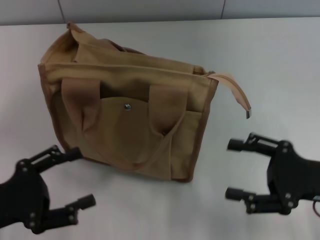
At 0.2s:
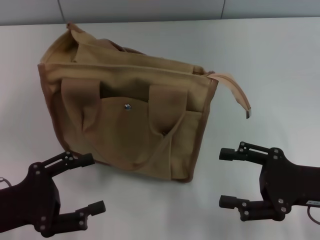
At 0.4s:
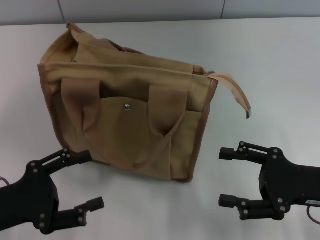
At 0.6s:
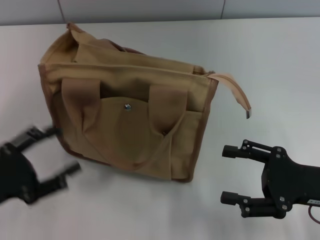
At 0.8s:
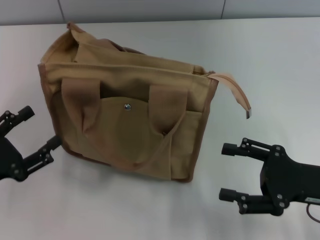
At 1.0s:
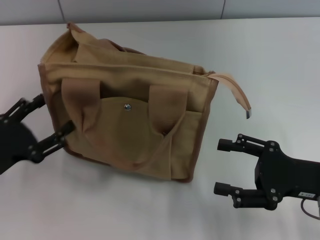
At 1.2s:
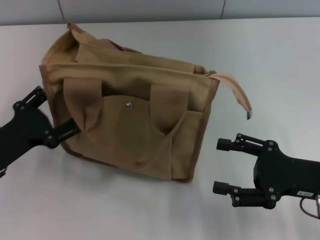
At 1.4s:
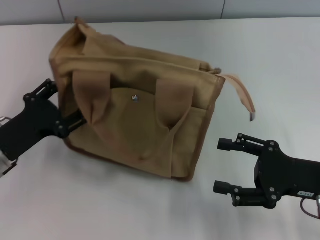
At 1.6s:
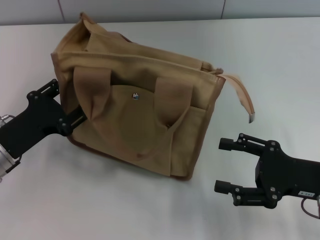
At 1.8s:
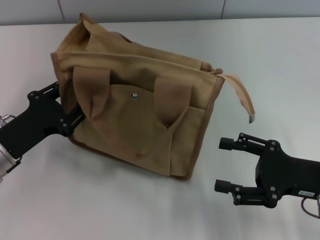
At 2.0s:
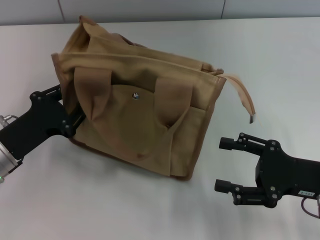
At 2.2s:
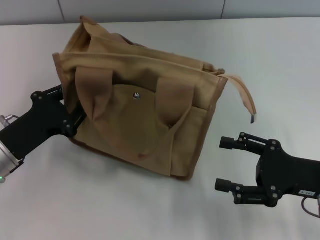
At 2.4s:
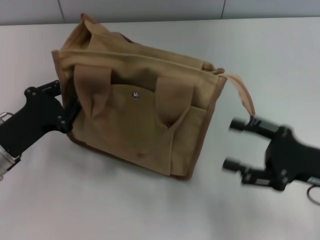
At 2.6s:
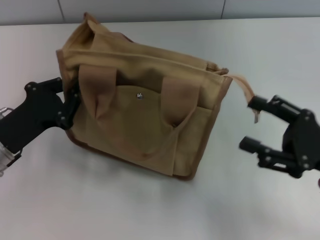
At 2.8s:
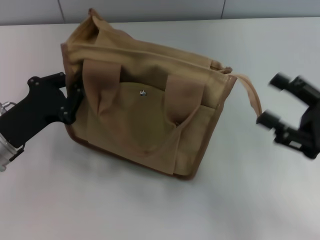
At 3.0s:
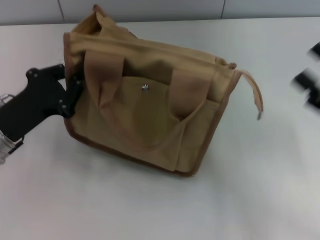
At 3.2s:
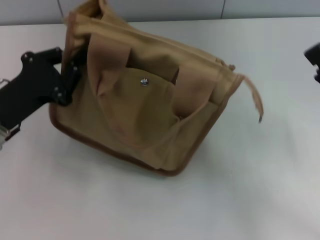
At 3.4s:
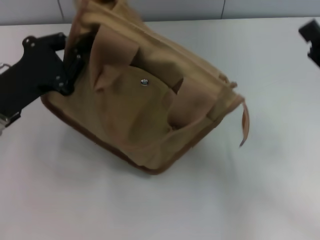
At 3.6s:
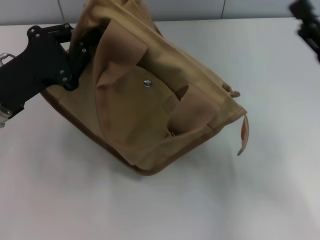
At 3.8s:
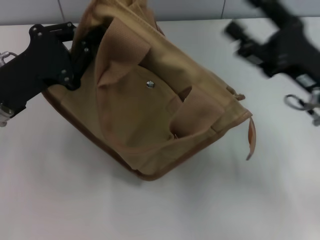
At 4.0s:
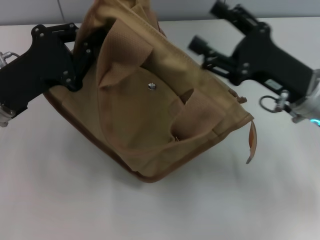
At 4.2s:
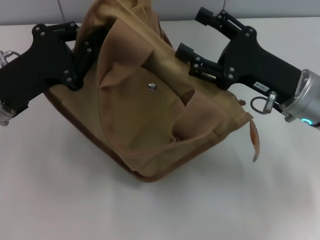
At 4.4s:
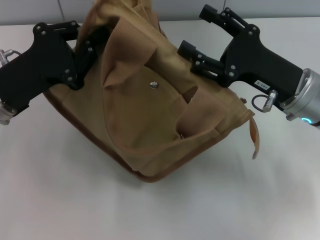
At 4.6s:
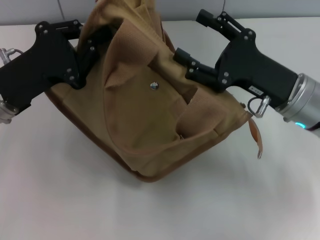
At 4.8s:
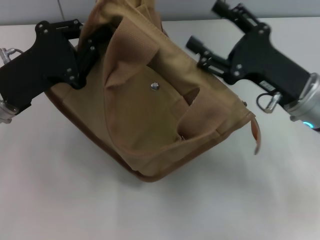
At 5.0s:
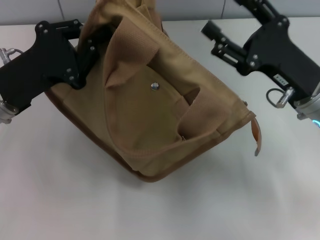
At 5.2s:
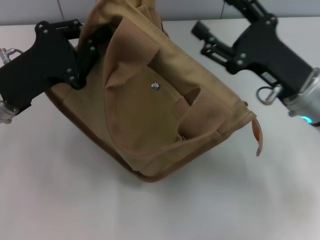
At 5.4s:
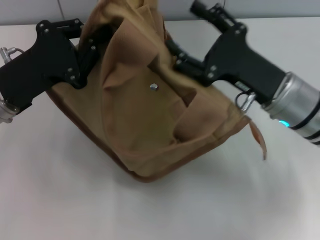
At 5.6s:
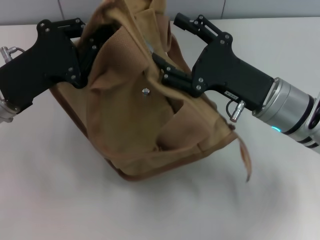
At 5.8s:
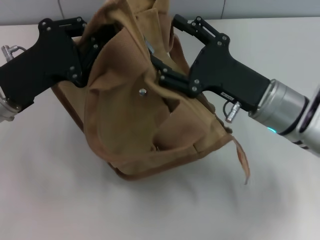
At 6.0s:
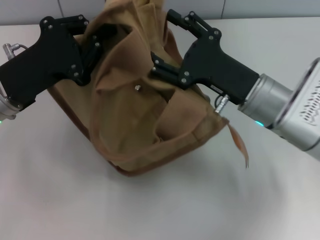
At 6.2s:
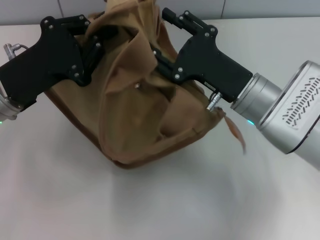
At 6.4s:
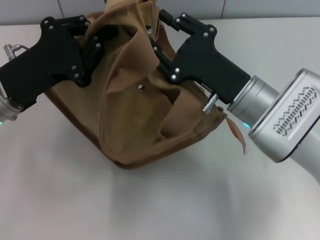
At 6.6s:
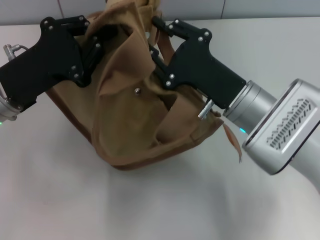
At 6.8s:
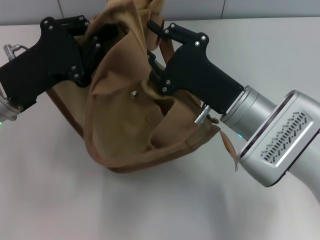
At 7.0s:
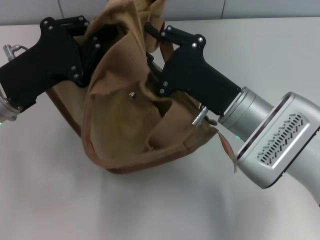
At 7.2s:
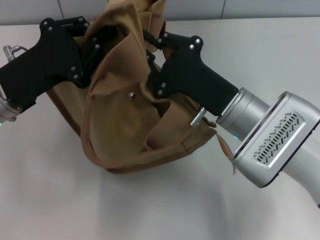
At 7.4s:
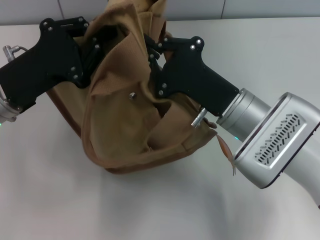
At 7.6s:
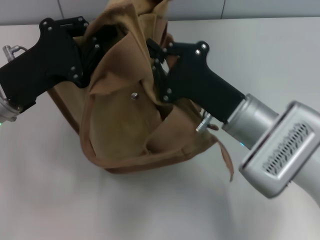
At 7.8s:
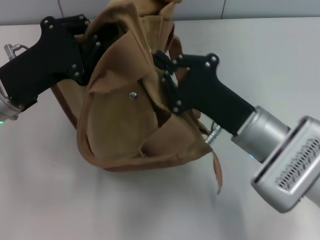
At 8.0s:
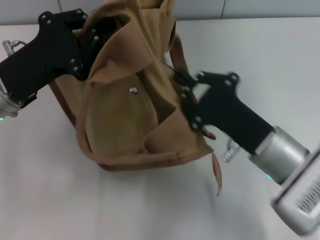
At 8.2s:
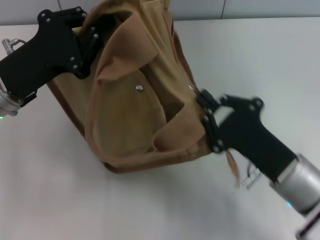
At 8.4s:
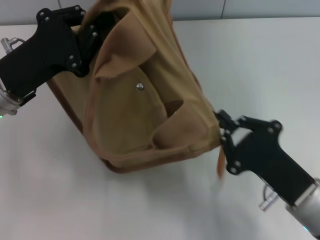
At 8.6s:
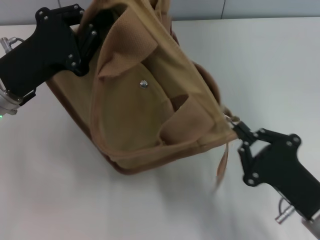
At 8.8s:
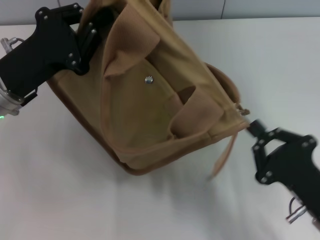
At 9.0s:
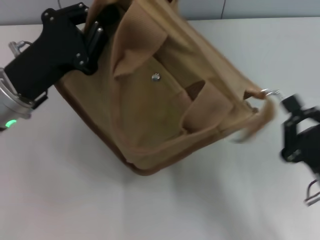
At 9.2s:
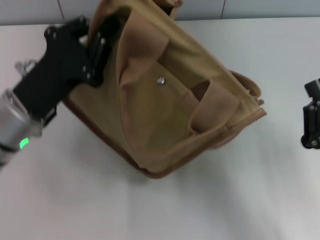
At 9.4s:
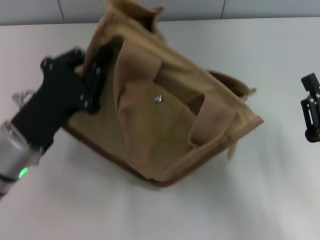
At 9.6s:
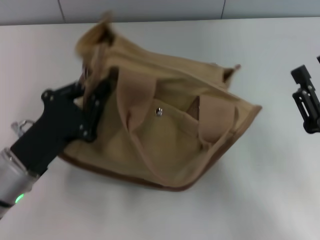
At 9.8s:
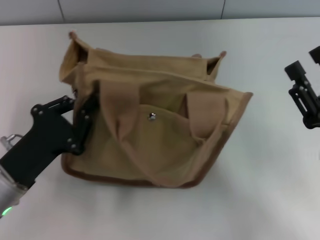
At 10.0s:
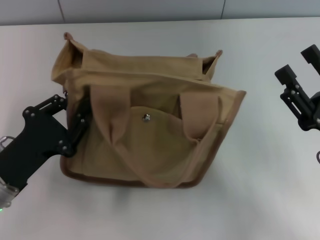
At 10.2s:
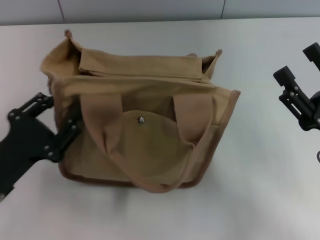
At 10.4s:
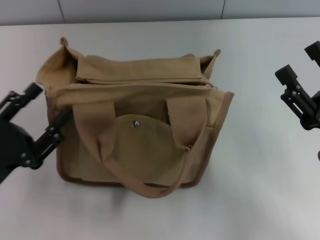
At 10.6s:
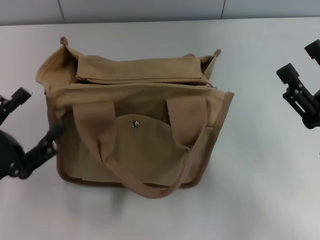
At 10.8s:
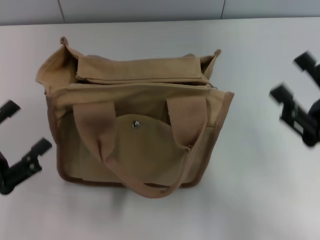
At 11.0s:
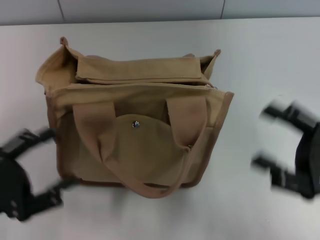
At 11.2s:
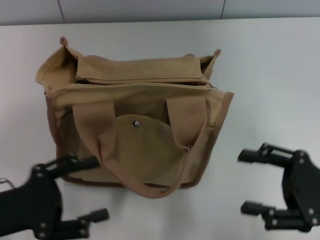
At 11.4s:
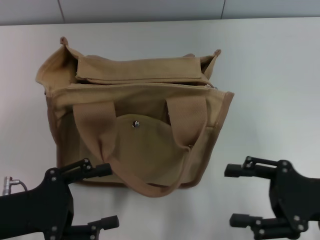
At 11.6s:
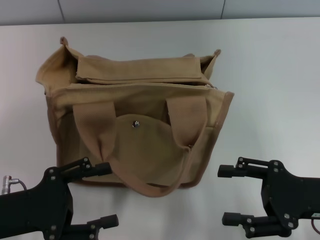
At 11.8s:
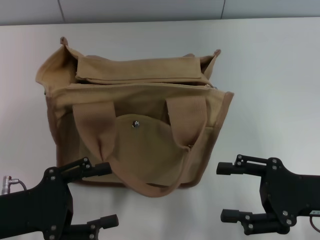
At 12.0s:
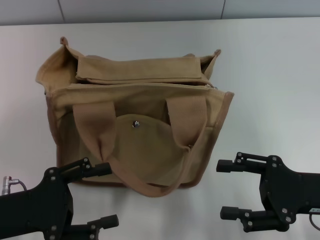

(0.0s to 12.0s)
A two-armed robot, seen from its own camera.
Step, 0.0s - 9.0s: Pull open the zipper with your right hand.
Step, 9.2s - 10.4s: Grab the bag with your left hand.
0.0s - 1.6s: The left gripper is displaced forward by roughly 10 cm.
1.6s - 3.0s: The left gripper closes. Meanwhile the right gripper shifts by about 5 cm.
3.0s - 4.4s: The right gripper is displaced to the left and forward by about 15 cm. The left gripper is displaced upward by roughly 5 cm.
4.4s - 6.0s: The right gripper goes some 5 cm to the left.
6.0s - 7.6s: The right gripper closes its fingers.
7.6s - 9.0s: The right gripper heads backward and to the right, covering roughly 15 cm.
9.0s - 10.4s: The right gripper changes place by approximately 5 cm, and opens up. Meanwhile the left gripper shifts approximately 15 cm backward, downward and to the left, and opens.

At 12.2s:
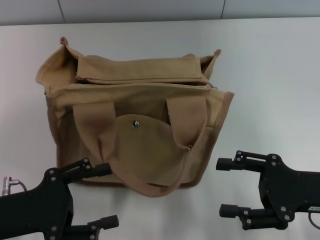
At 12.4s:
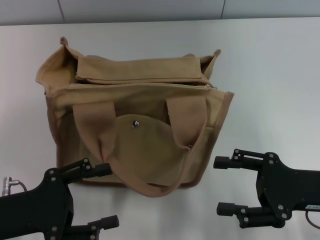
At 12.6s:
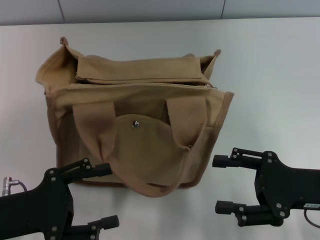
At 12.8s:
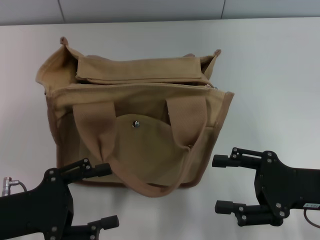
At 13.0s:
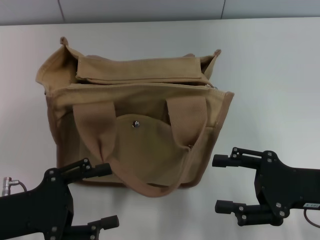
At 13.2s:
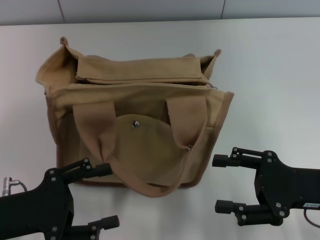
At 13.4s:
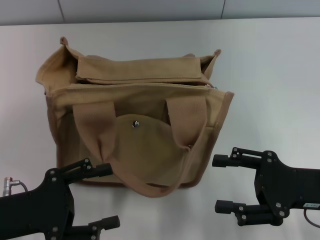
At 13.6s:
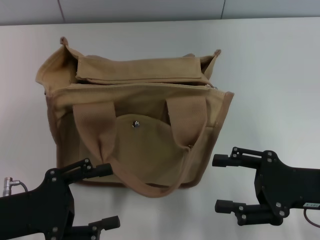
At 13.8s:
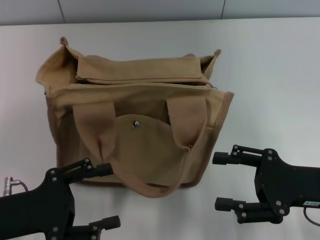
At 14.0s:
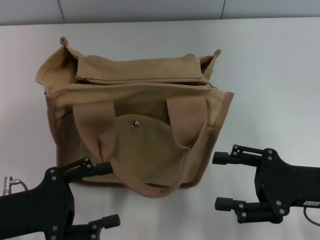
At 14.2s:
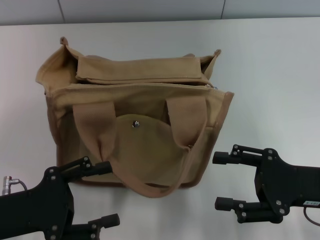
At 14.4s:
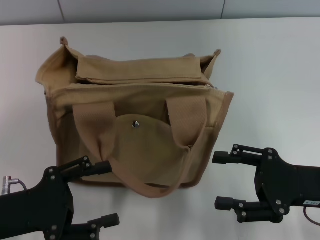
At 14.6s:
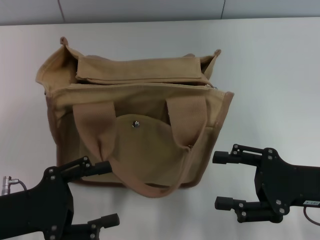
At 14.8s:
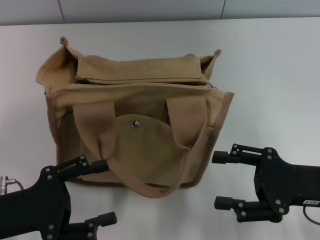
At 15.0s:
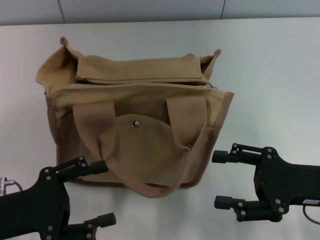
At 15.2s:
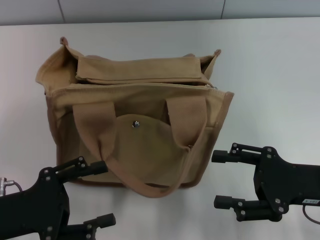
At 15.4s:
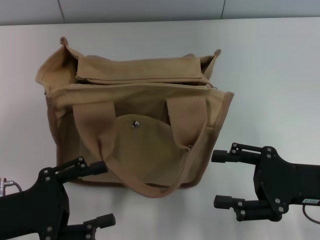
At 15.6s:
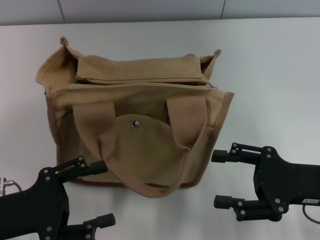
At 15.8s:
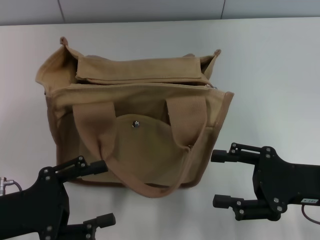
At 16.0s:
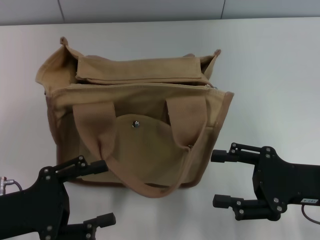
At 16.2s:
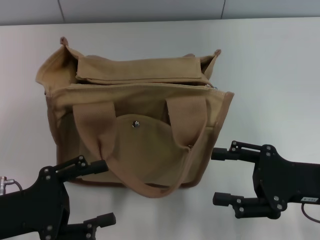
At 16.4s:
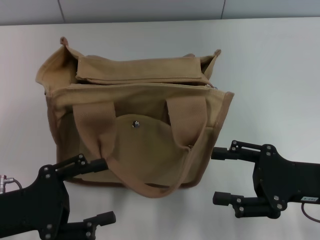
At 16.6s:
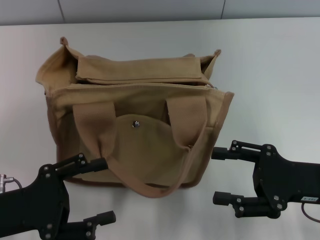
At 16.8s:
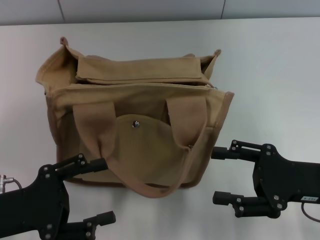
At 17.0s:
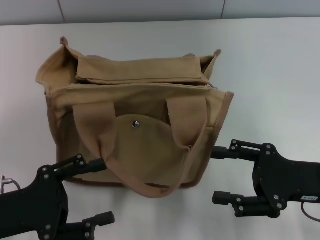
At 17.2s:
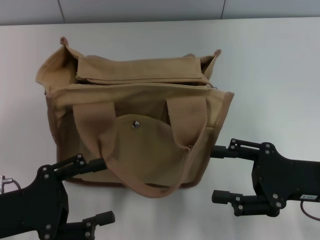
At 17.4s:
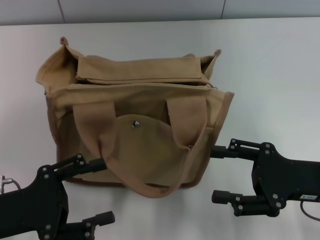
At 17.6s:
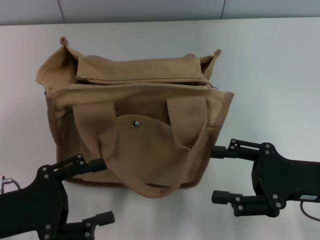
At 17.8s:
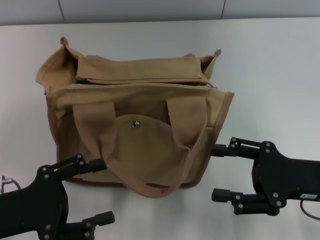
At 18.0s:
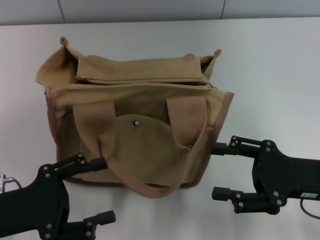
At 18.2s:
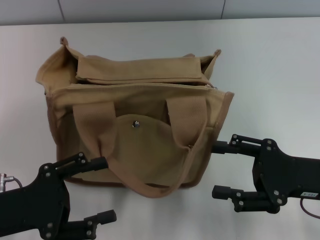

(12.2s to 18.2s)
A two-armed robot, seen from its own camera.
12.2s - 18.2s: Both grippers stay about where they are.

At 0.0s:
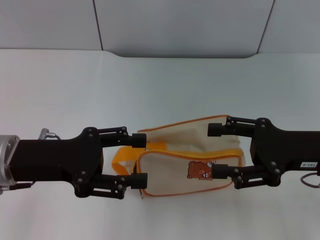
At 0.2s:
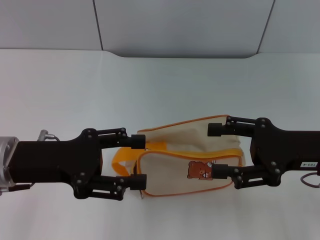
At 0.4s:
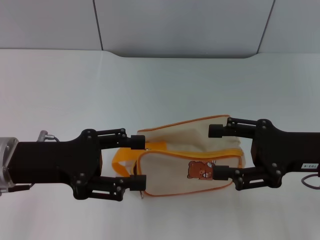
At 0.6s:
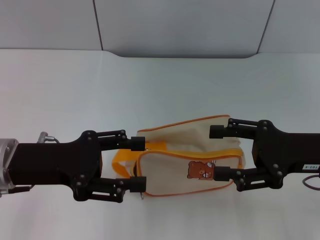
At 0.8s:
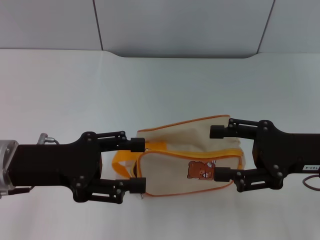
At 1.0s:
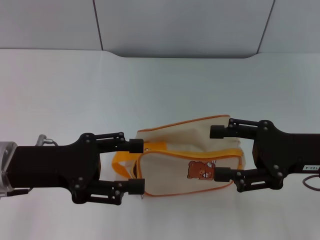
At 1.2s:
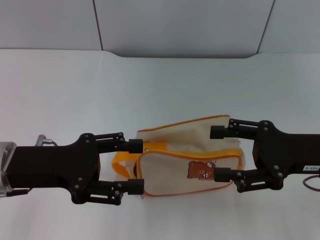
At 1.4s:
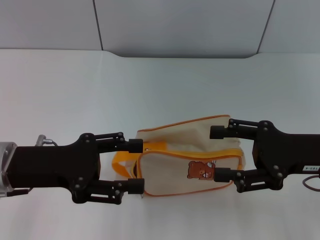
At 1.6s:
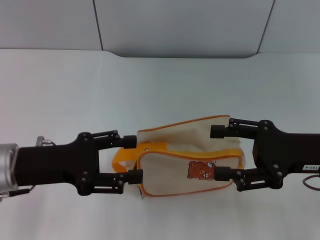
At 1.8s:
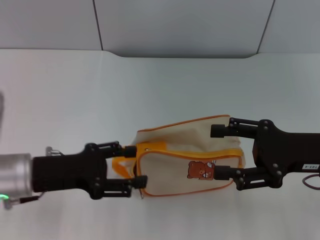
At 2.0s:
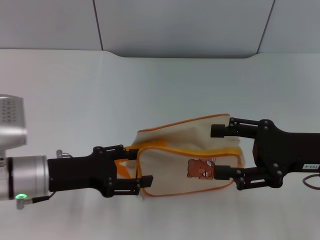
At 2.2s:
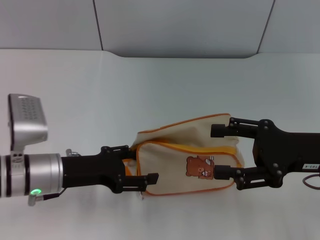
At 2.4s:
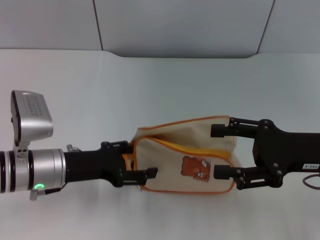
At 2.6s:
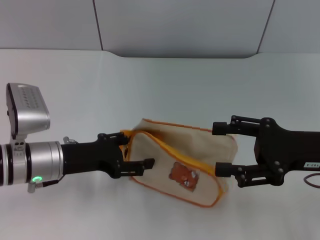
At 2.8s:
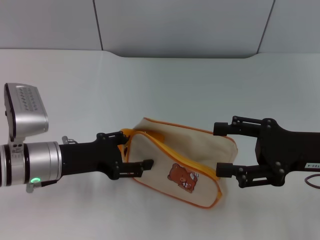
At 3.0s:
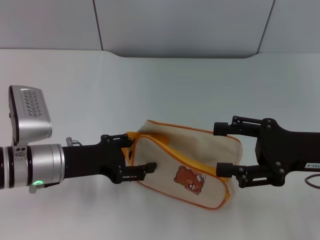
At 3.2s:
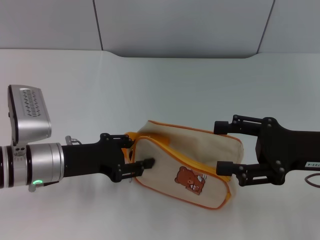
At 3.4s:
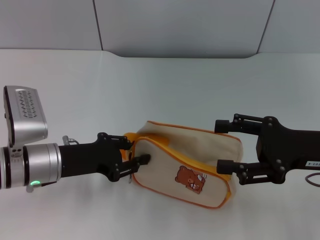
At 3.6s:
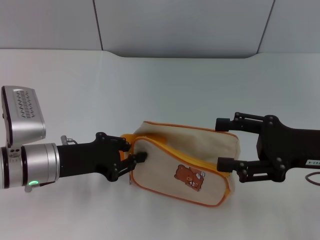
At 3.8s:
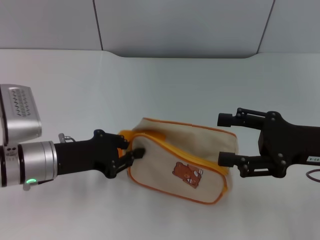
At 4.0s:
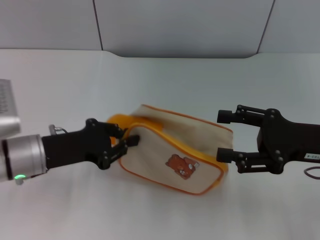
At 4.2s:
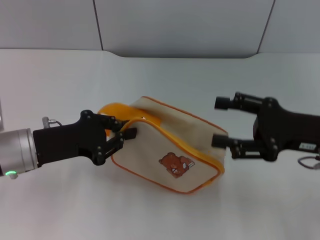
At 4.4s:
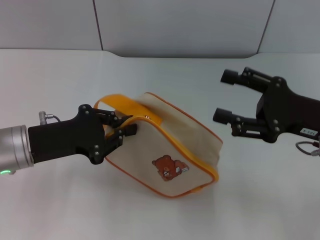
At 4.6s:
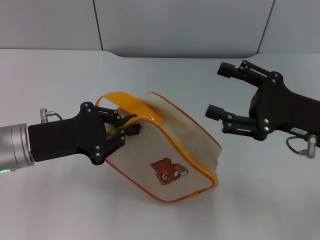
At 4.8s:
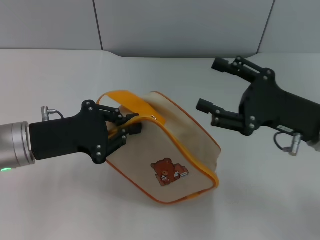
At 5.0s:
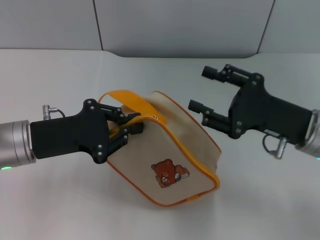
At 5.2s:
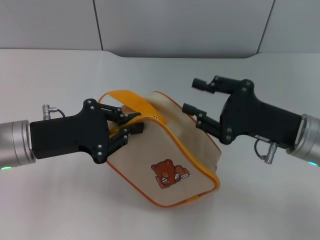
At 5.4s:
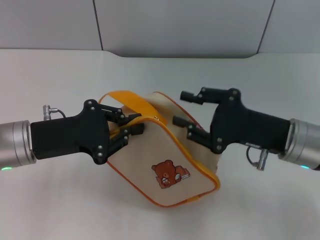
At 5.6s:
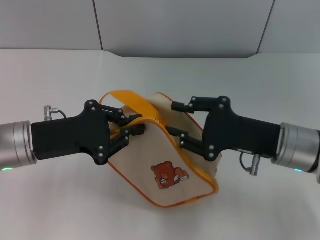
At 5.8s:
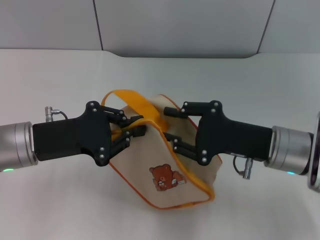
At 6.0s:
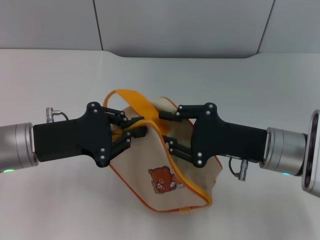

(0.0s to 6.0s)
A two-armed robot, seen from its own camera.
Step, 0.0s - 4.4s: Pick up the bag with left gripper.
0.0s - 1.6s: There are only small adjustments of the grippers.
1.6s - 3.0s: The left gripper goes approximately 5 cm downward.
3.0s - 4.4s: The left gripper closes.
4.4s - 6.0s: The right gripper moves to the left, some 10 cm, and closes its fingers.
